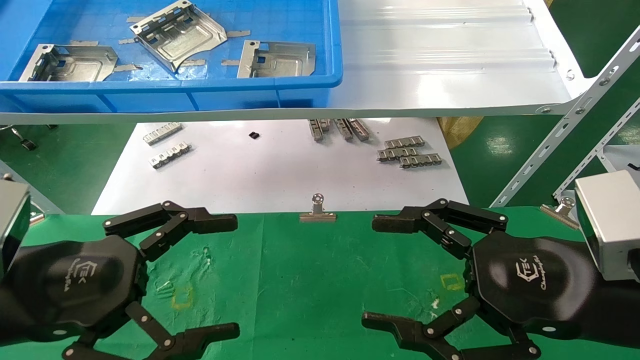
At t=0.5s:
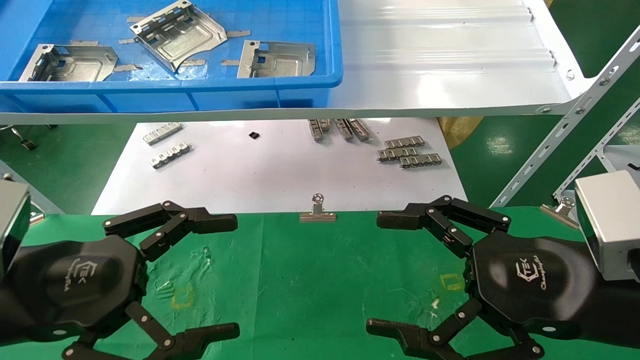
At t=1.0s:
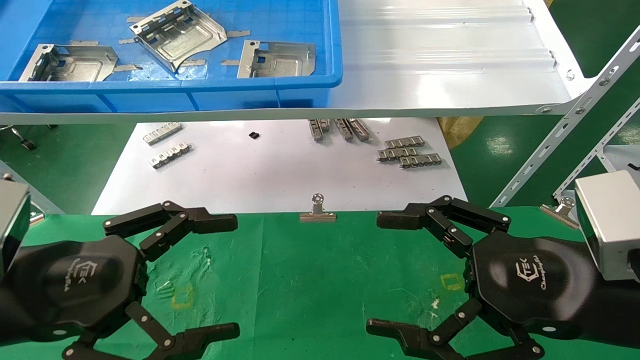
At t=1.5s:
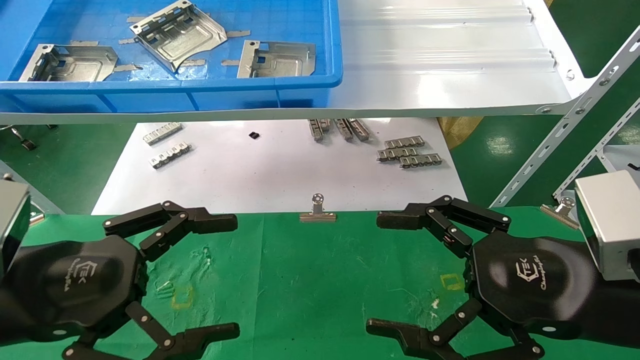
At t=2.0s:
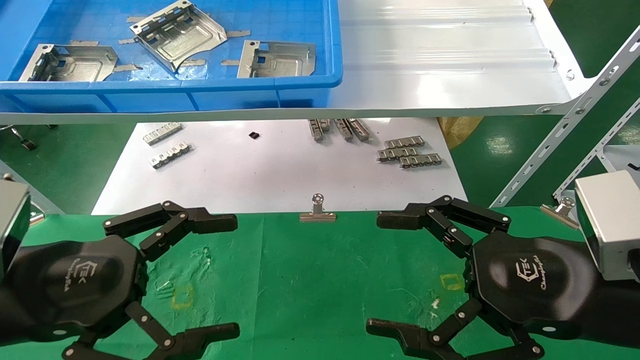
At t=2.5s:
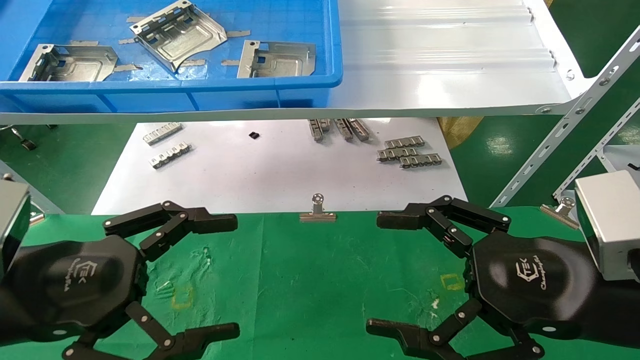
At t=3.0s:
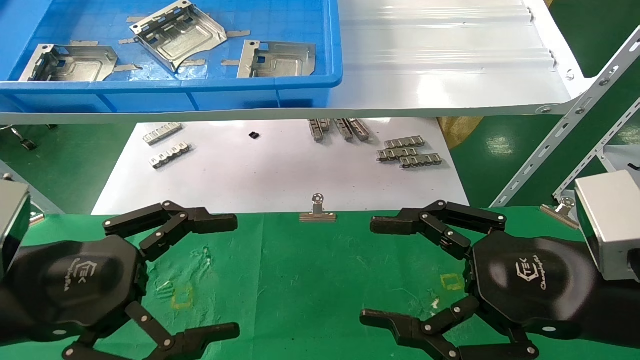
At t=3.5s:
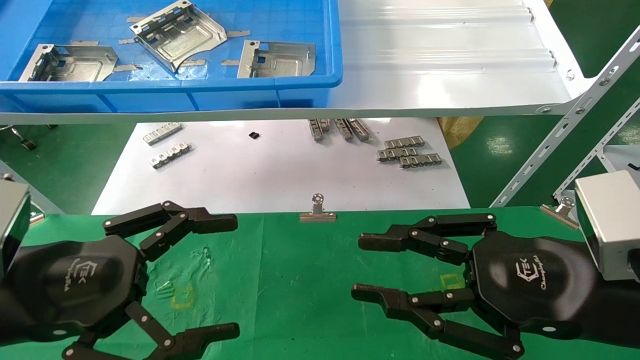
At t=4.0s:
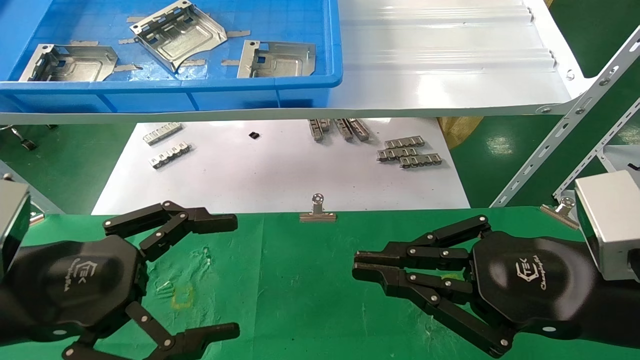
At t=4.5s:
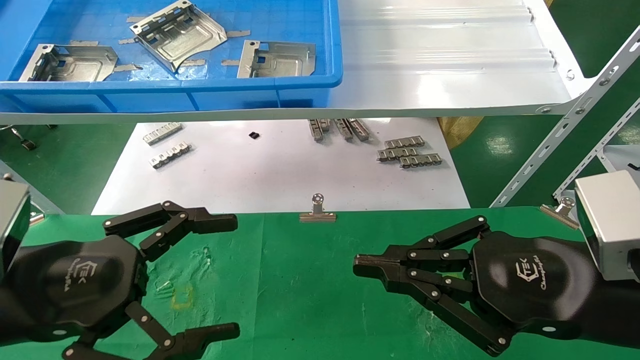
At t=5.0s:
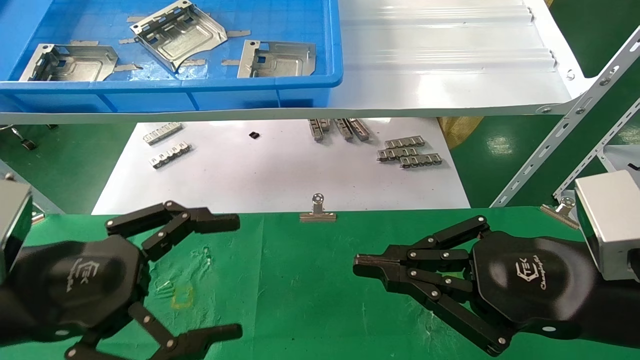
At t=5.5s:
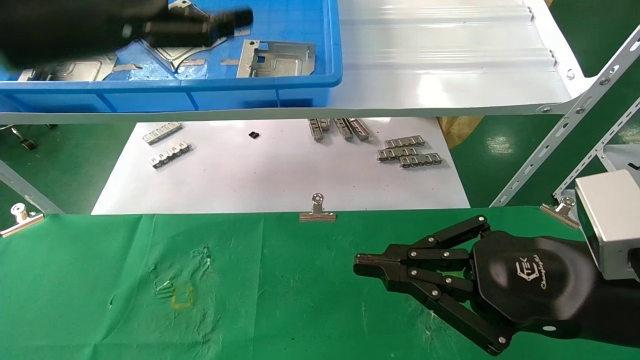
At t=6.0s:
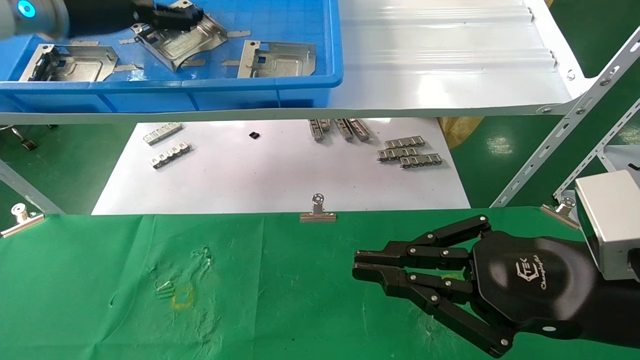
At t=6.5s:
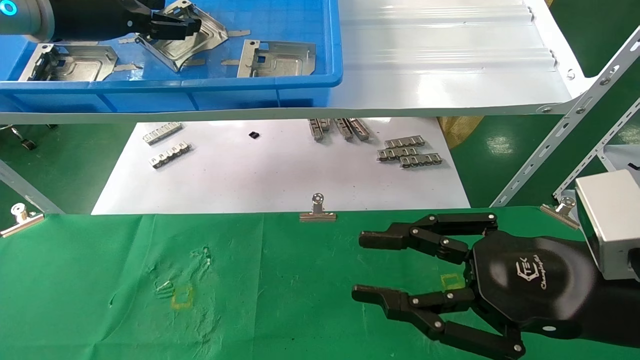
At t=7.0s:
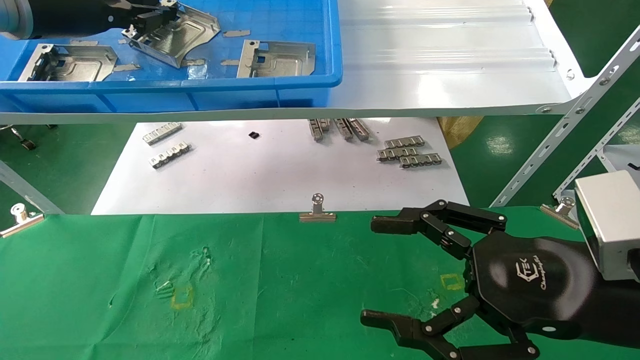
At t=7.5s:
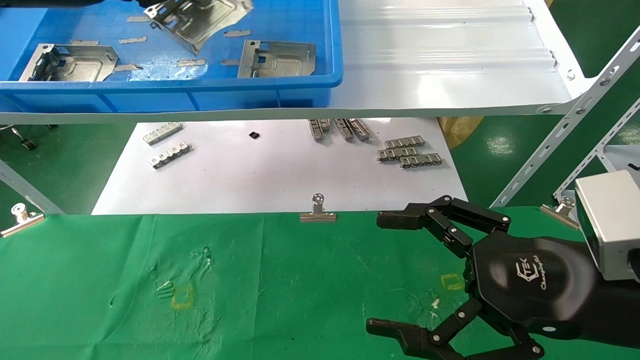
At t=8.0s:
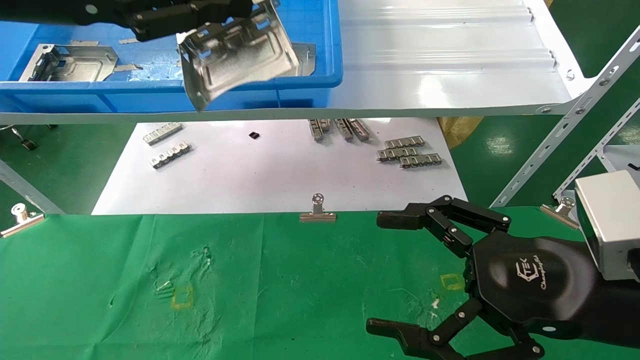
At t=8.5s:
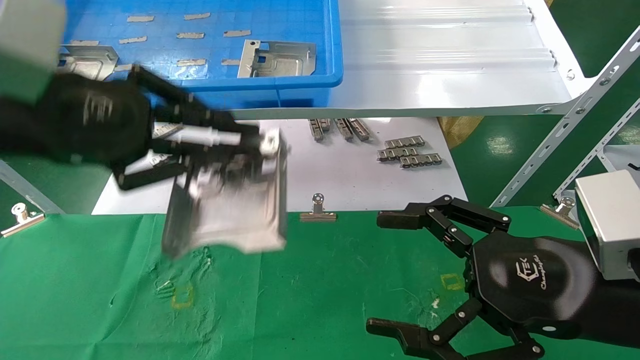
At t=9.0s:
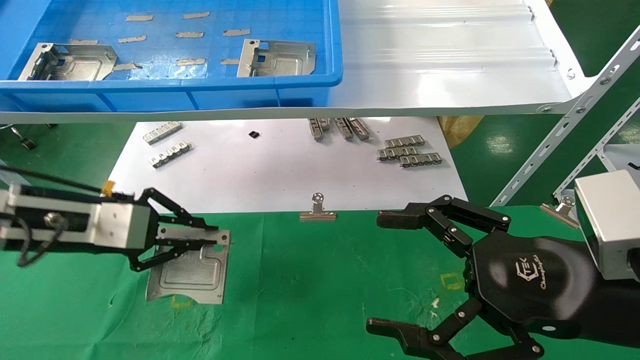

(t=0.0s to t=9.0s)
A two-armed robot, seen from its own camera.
Task of the whole recording: use the mechanical arm to pick up the parts and place them on the table.
Step, t=5.5s - t=7.0s: Pick up the hard drive bracket from the feeding area.
t=0.0s - t=2.0s: The two grippers keep their place.
t=2.0s - t=4.5s: The right gripper closes up.
t=4.5s - t=7.0s: The left gripper moves upward and forward, some 30 cm, and closes. Meanwhile the right gripper opens.
t=7.0s - t=9.0s: The left gripper travels downward and backward by some 25 cm.

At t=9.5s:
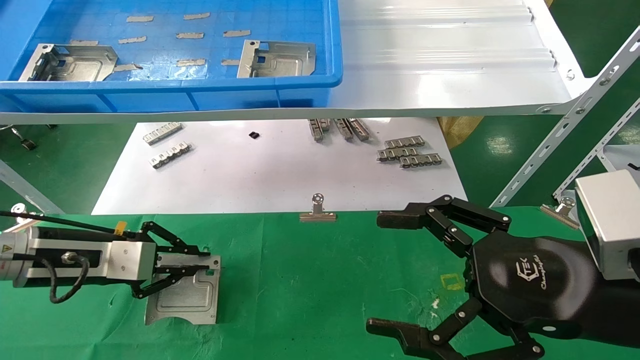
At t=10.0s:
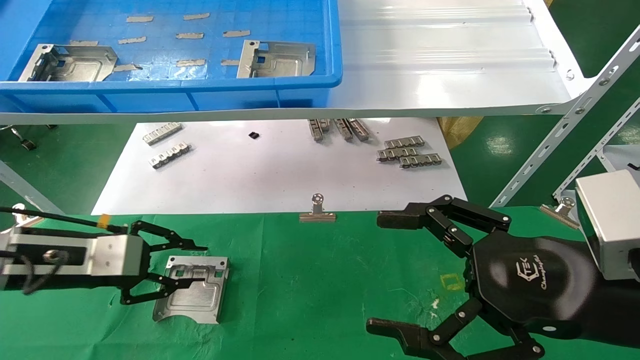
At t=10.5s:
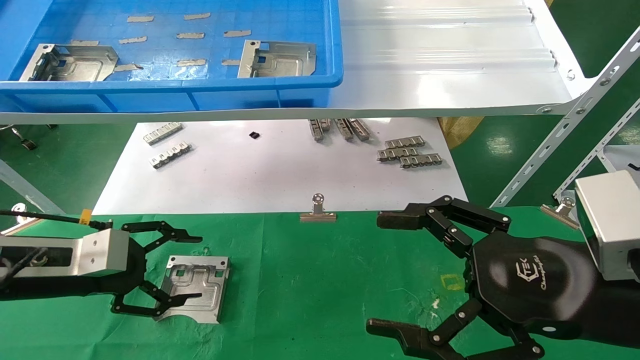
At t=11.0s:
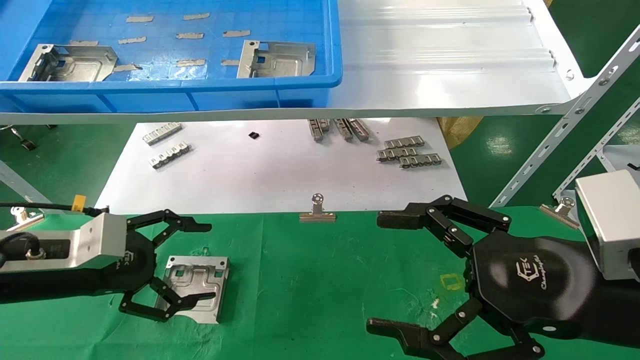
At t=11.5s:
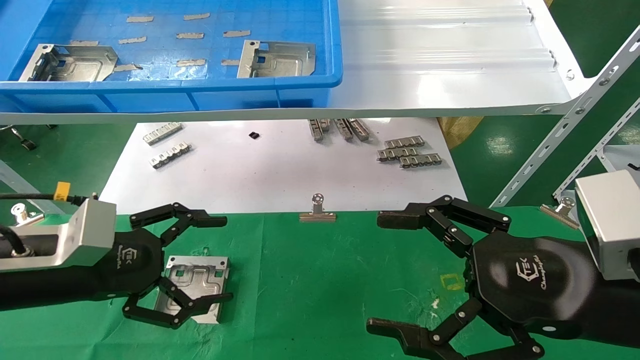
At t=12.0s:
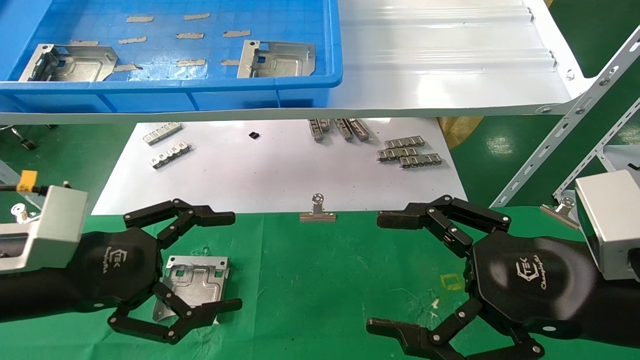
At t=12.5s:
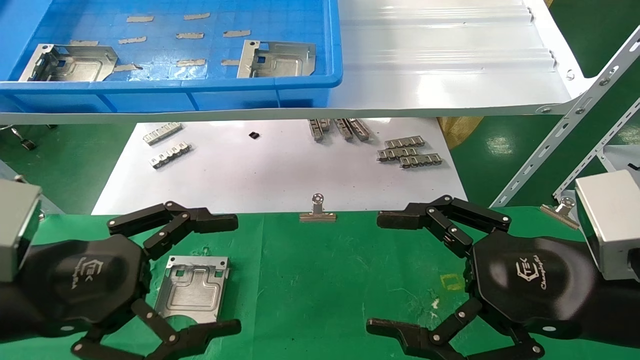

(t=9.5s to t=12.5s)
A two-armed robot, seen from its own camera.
Task of the whole recording: use the mechanical arm to pick up the parts and place them on the table.
t=9.5s - t=11.0s: The left gripper opens up.
t=11.0s - t=12.5s: The left gripper shifts some 10 cm backward.

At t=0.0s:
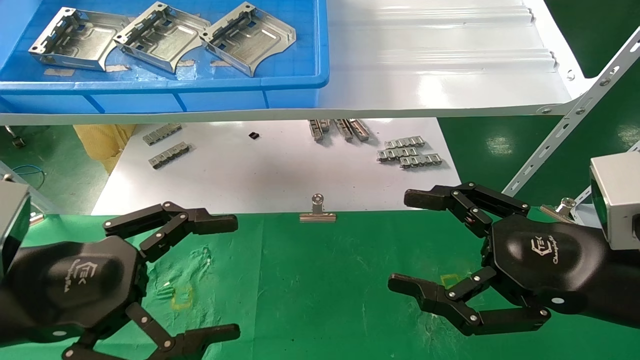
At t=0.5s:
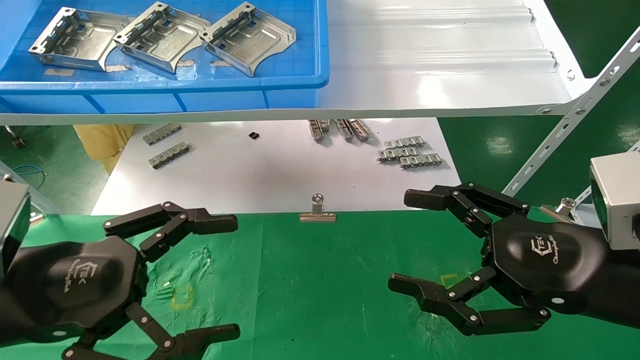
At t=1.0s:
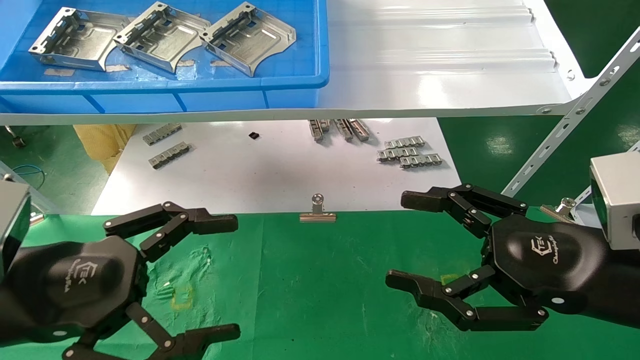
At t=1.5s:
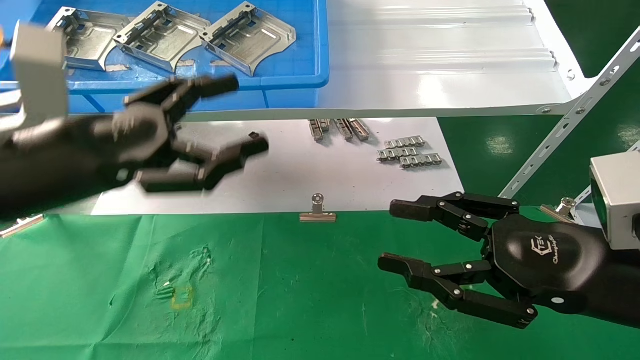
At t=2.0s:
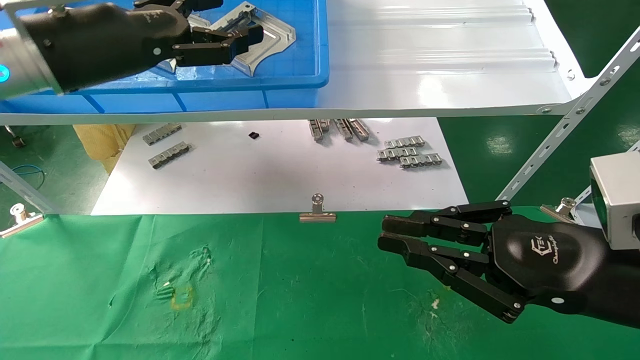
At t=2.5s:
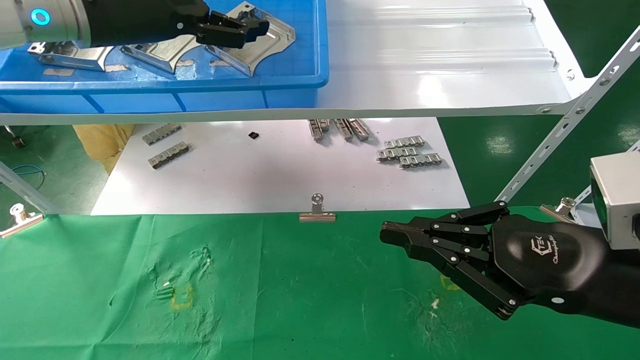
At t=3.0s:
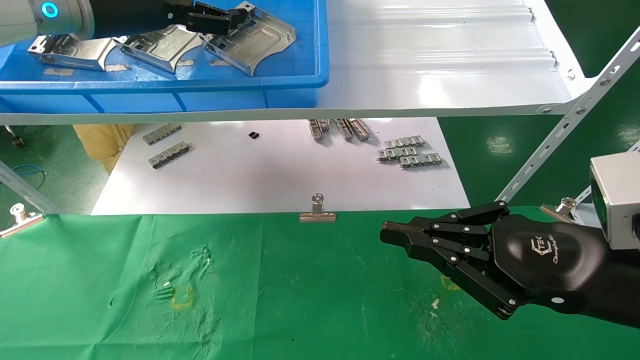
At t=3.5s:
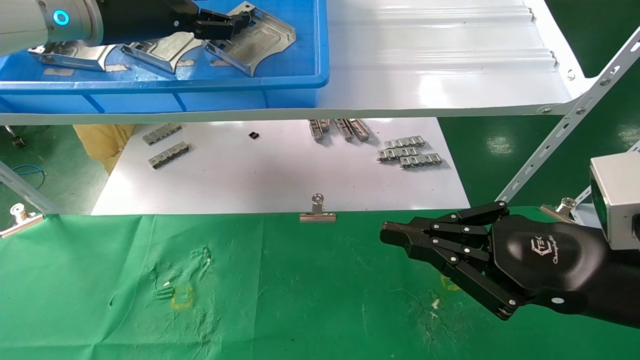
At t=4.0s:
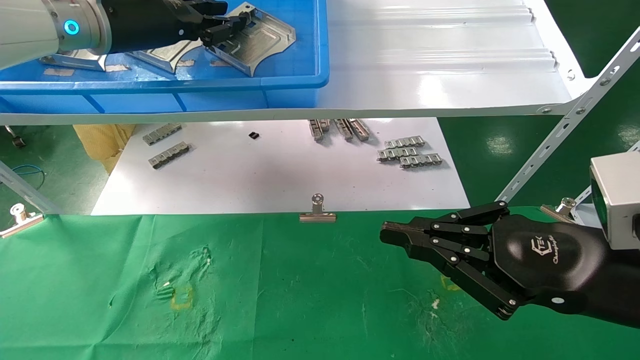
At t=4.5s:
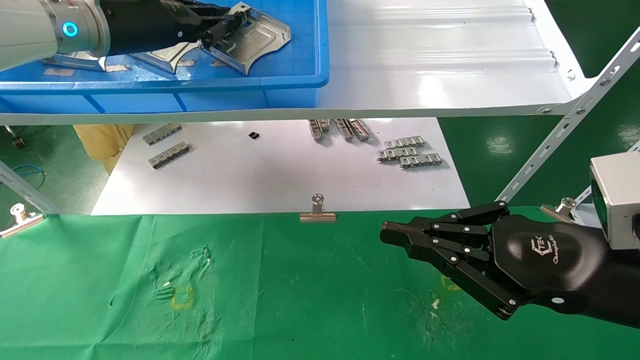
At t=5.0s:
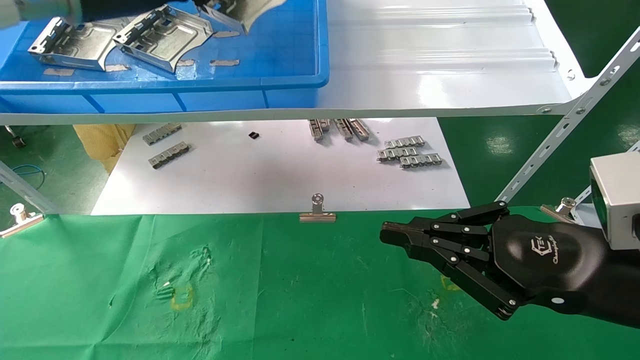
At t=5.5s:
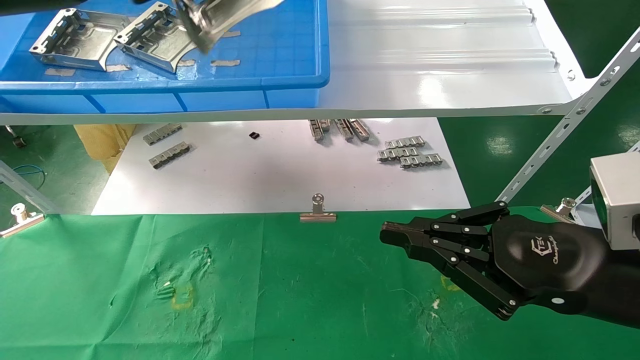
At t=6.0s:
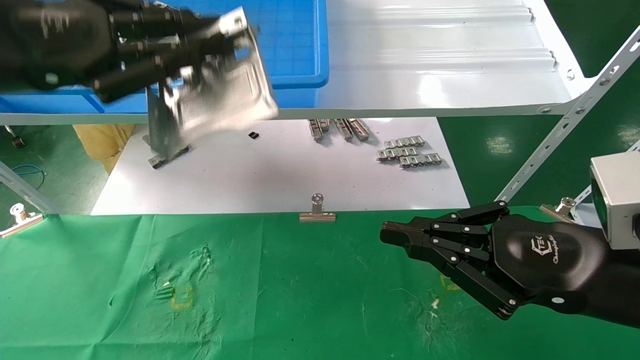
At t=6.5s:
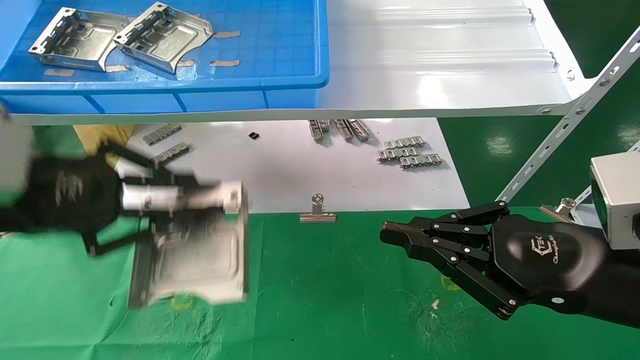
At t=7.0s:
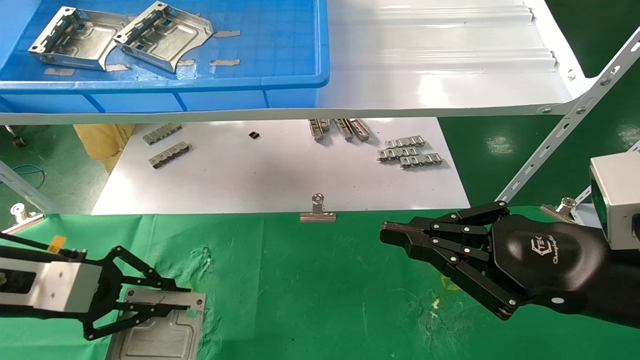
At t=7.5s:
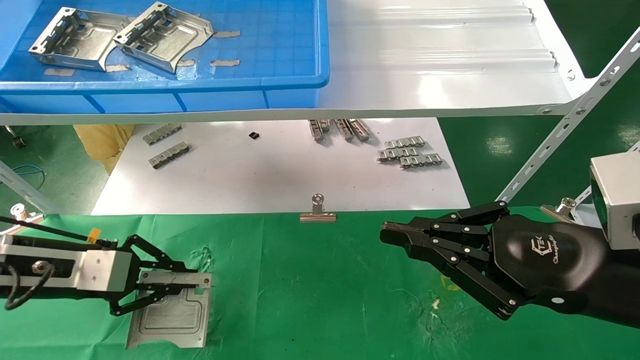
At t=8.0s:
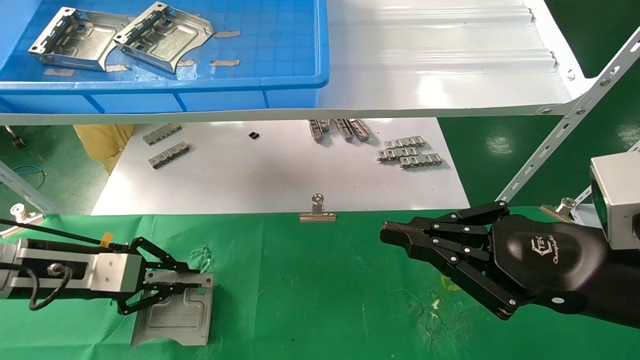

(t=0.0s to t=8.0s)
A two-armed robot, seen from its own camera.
Task of the whole recording: use the mechanical arm to pick up the parts and place them on the table.
Step, t=1.5s - t=4.0s: Pick up the hard drive bracket from the feeding area.
t=0.0s - t=2.0s: The right gripper closes its fingers. Meanwhile the left gripper goes about 25 cm upward and forward.
t=2.0s - t=4.0s: The left gripper travels forward by approximately 5 cm, and closes.
t=4.0s - t=6.0s: The left gripper travels backward by some 15 cm, and closes its fingers.
t=6.0s - t=8.0s: The left gripper moves downward, roughly 25 cm.
